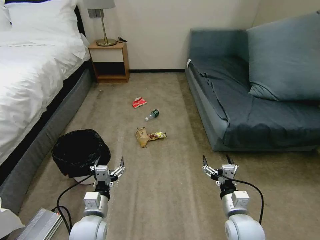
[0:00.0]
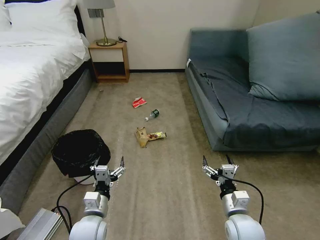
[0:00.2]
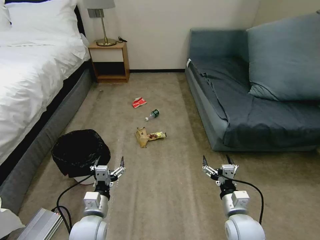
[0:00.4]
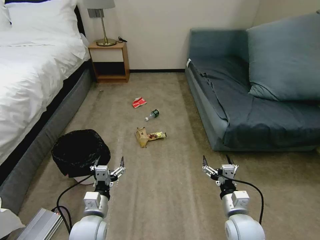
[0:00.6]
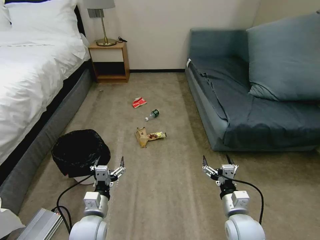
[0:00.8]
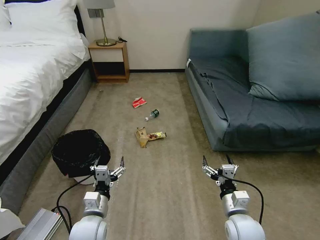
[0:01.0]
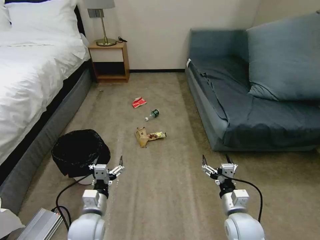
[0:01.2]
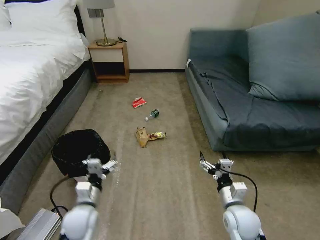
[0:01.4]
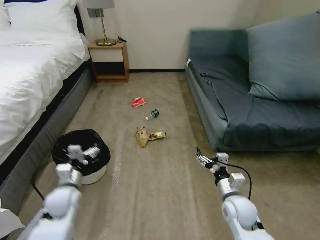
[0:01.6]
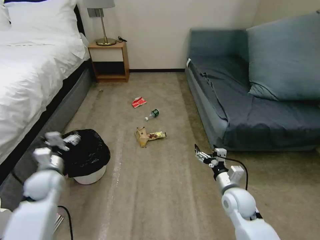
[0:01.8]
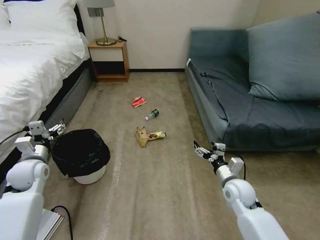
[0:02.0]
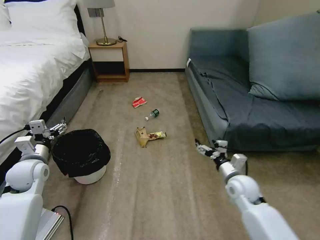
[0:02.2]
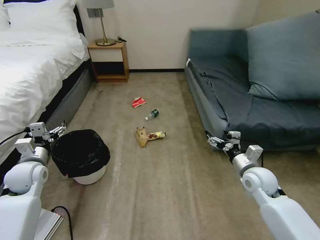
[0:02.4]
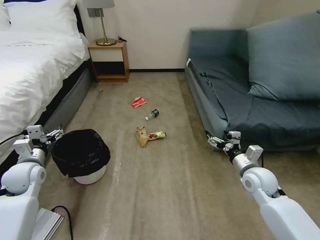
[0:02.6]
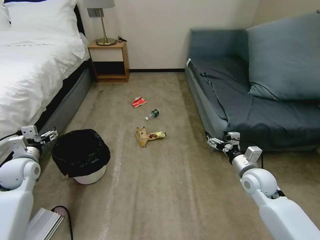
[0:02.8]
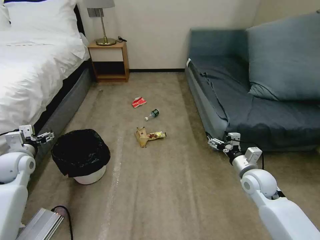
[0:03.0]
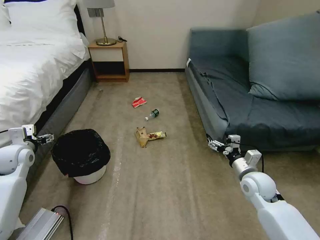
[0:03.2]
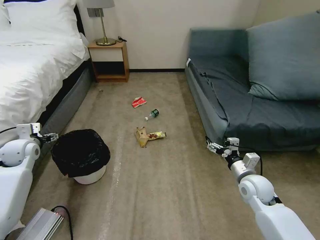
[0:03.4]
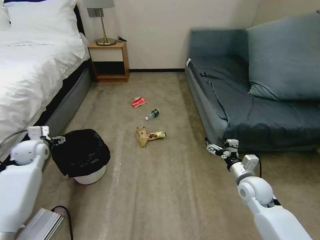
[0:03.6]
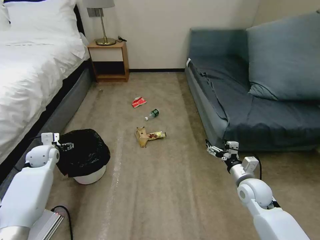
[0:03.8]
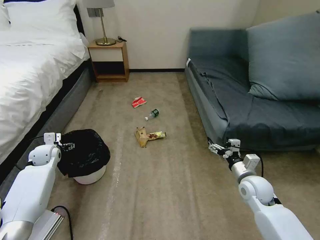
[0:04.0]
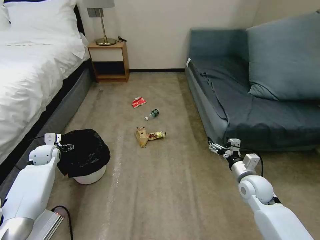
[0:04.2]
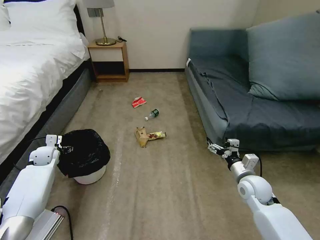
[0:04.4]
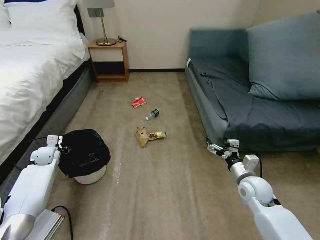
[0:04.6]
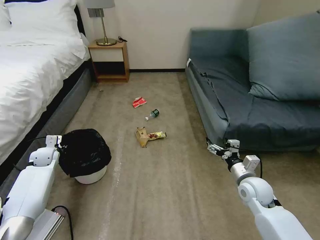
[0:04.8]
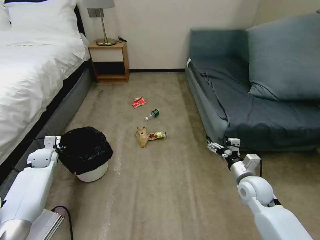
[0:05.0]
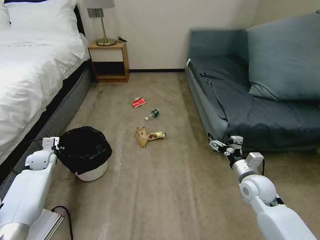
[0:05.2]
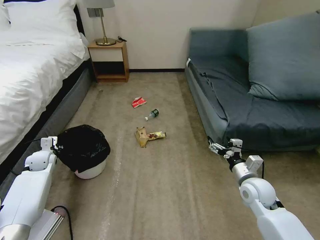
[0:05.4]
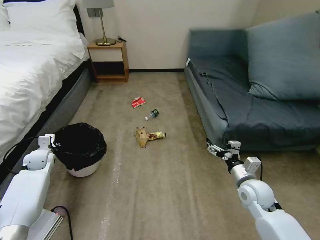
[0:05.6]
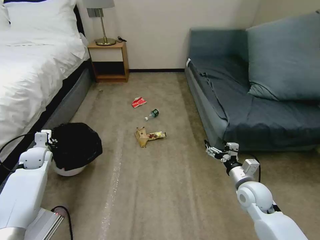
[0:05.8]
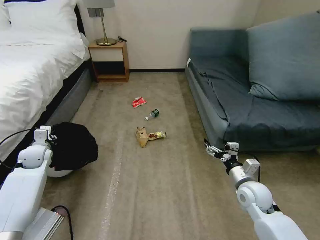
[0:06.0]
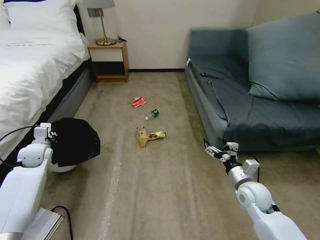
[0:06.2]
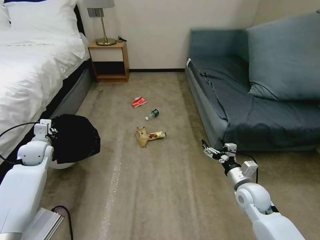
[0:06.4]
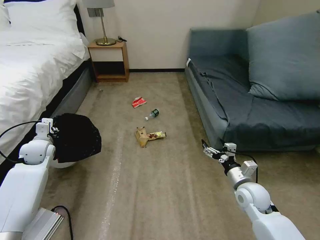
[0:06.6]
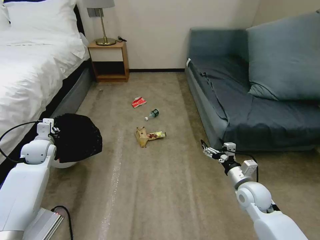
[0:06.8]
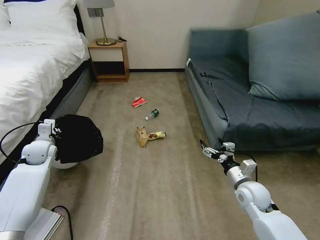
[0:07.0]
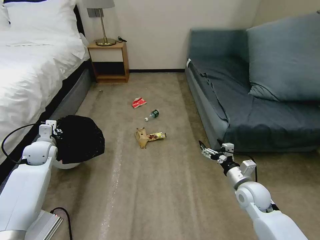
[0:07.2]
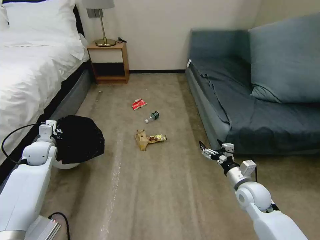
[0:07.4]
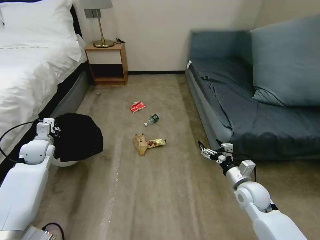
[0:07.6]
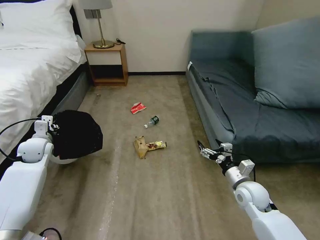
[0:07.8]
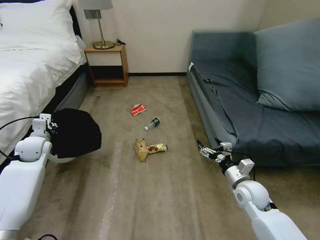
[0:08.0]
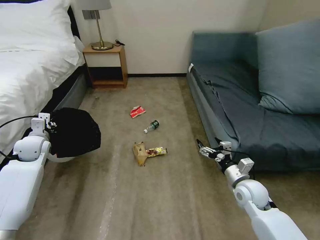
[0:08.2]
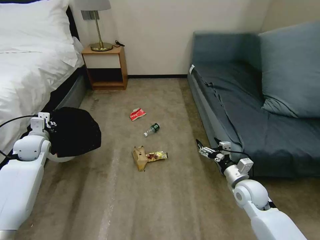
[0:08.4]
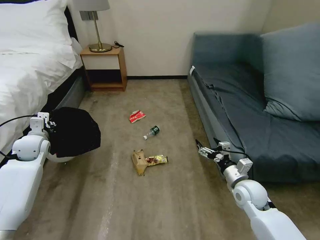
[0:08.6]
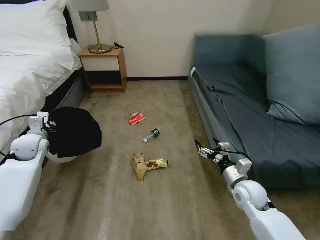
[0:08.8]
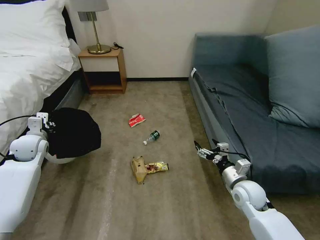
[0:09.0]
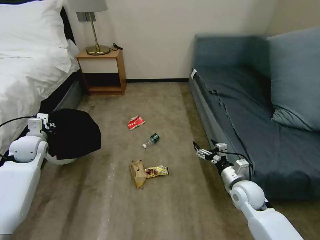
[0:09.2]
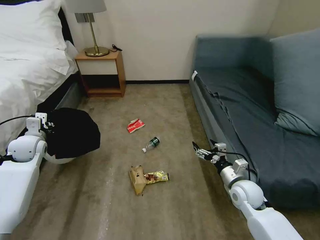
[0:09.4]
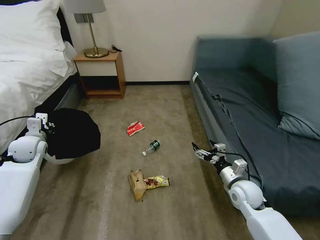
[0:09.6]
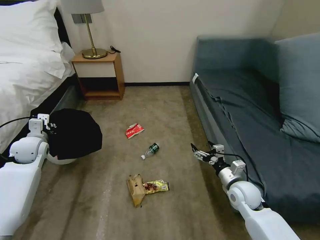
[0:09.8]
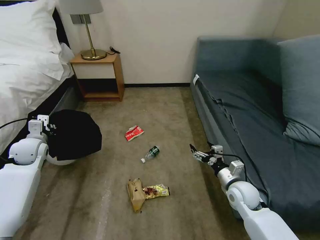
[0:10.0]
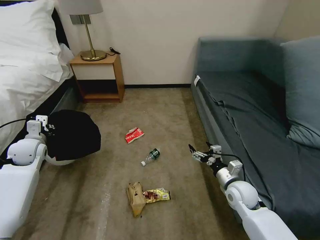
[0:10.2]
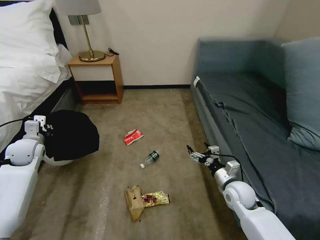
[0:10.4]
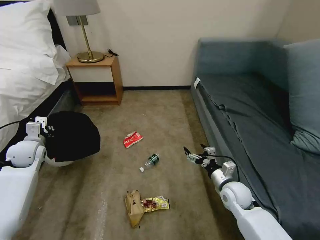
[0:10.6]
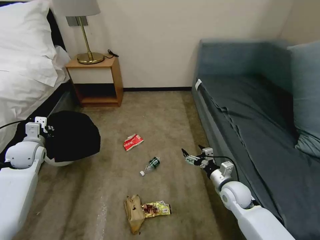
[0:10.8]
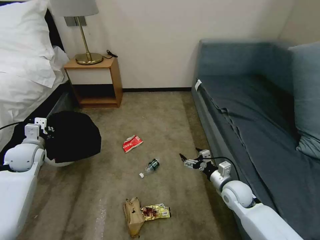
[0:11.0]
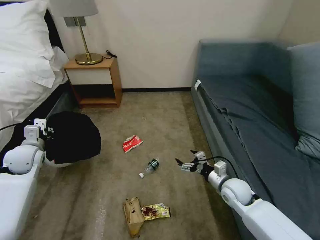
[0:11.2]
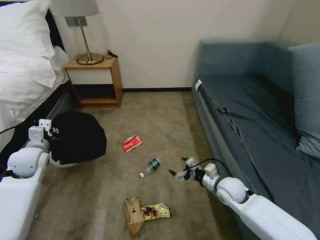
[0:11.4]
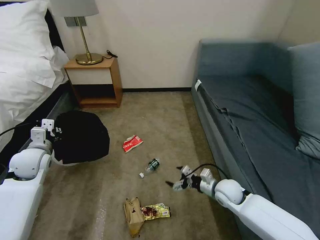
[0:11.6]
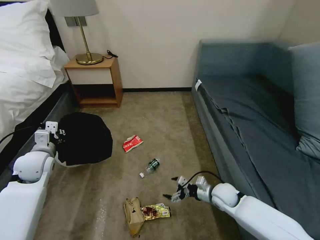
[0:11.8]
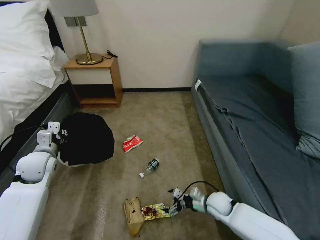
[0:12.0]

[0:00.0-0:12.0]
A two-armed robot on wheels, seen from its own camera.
Task of the whole recording: Pick up the trash bin, then pick up the garbage on the floor and place it into the trash bin.
0:01.6 to 0:03.0: The right gripper travels to the right and forward by about 10 cm. The left gripper goes about 20 cm to the left, upward and forward.
0:03.0 to 0:04.4: The left gripper heads downward and forward, covering approximately 15 cm.
0:04.4 to 0:06.0: The left gripper ends up some 5 cm from where it was, and closes its fingers.
0:06.0 to 0:07.6: There are only small adjustments of the grippers.
0:10.4 to 0:12.0: The right gripper goes some 10 cm downward. Meanwhile the left gripper goes roughly 10 cm to the right and backward.

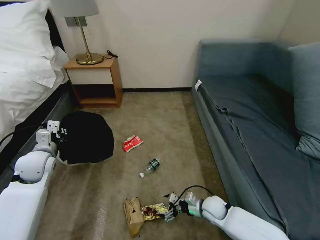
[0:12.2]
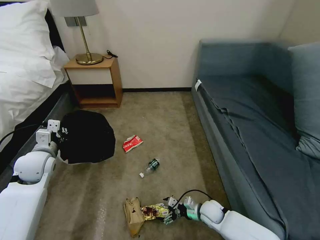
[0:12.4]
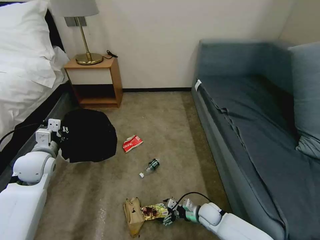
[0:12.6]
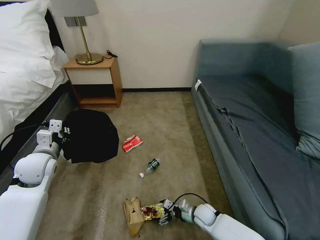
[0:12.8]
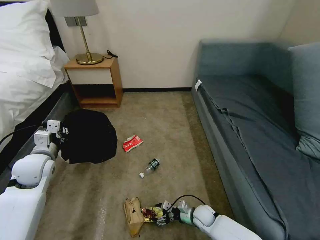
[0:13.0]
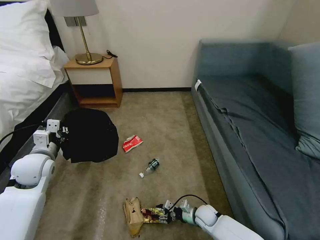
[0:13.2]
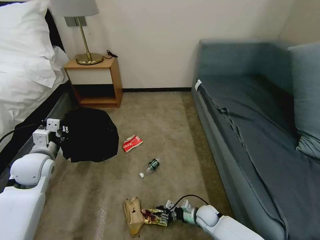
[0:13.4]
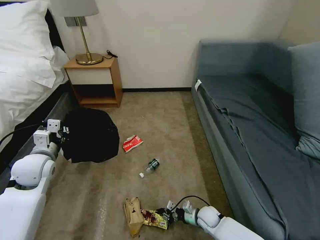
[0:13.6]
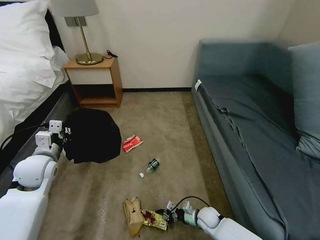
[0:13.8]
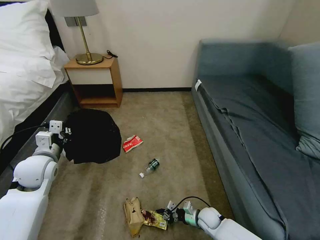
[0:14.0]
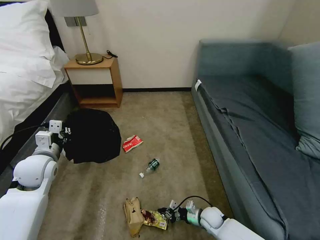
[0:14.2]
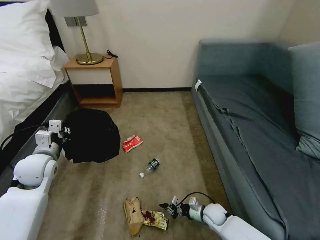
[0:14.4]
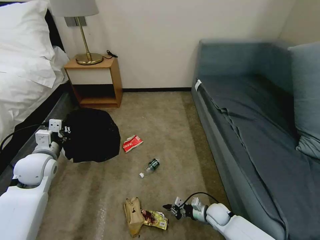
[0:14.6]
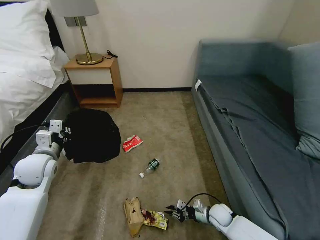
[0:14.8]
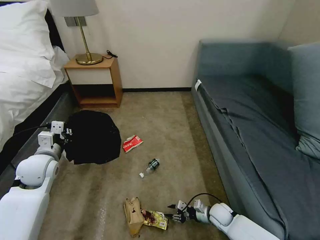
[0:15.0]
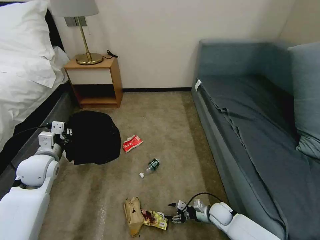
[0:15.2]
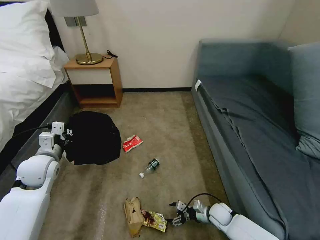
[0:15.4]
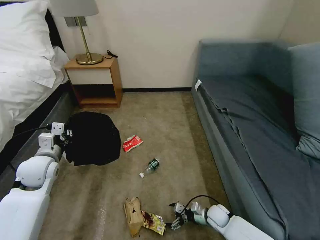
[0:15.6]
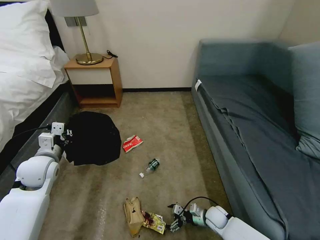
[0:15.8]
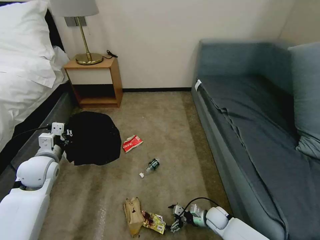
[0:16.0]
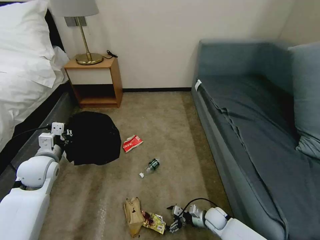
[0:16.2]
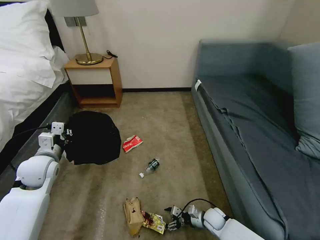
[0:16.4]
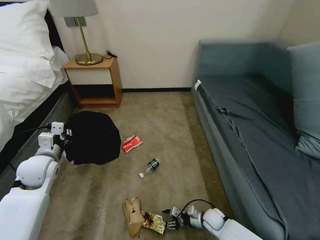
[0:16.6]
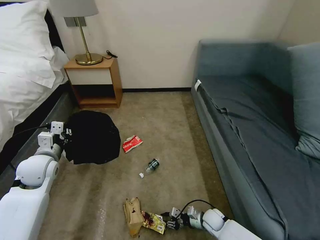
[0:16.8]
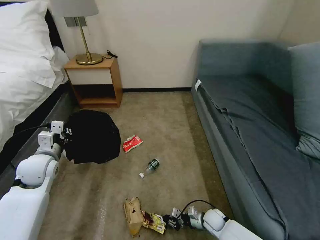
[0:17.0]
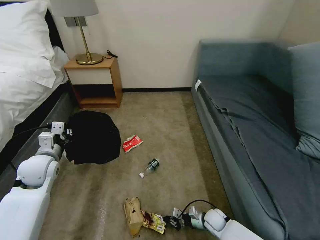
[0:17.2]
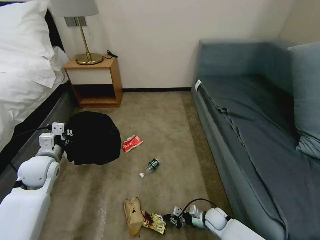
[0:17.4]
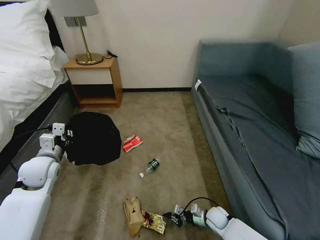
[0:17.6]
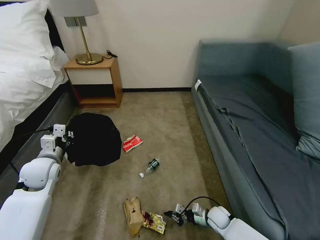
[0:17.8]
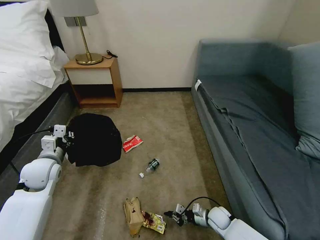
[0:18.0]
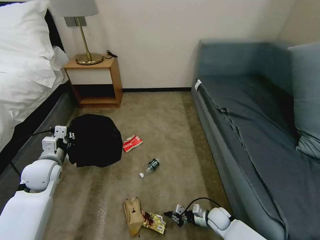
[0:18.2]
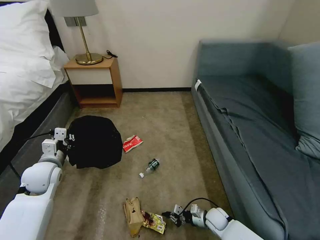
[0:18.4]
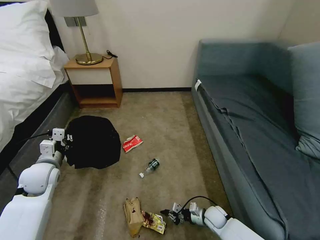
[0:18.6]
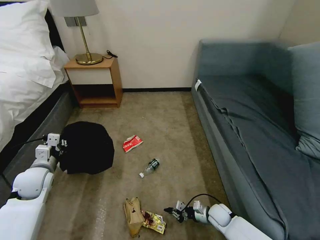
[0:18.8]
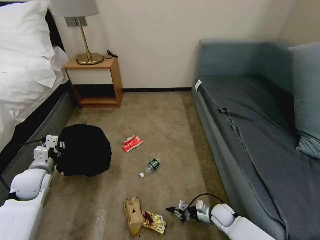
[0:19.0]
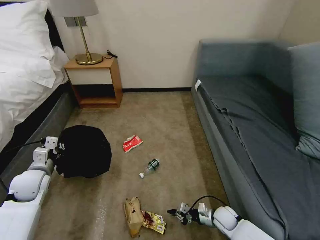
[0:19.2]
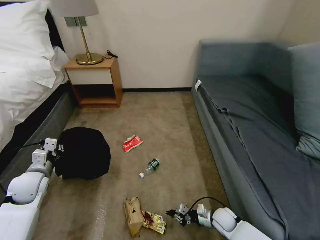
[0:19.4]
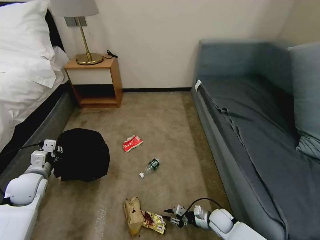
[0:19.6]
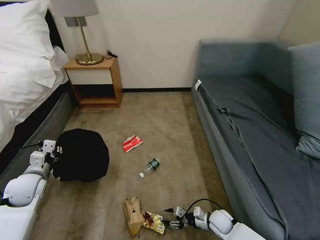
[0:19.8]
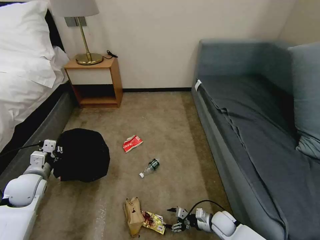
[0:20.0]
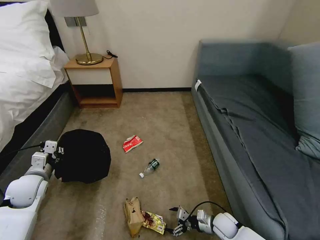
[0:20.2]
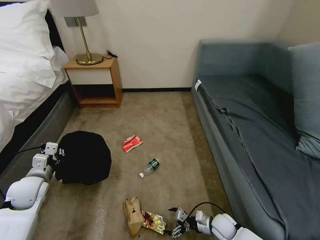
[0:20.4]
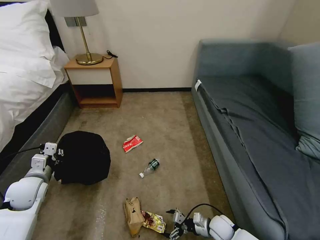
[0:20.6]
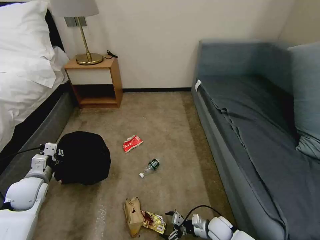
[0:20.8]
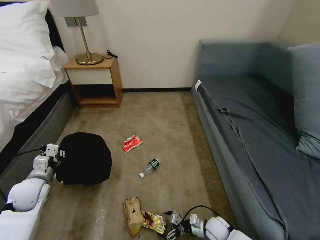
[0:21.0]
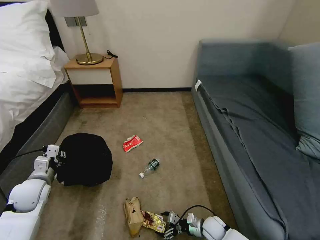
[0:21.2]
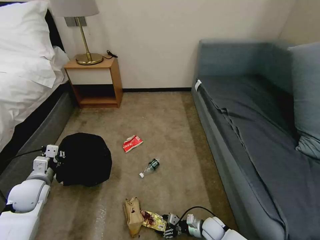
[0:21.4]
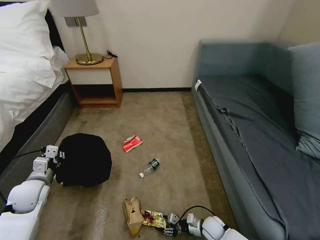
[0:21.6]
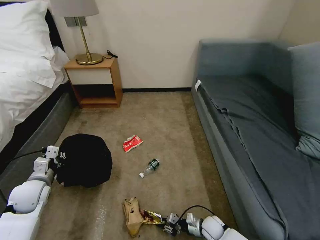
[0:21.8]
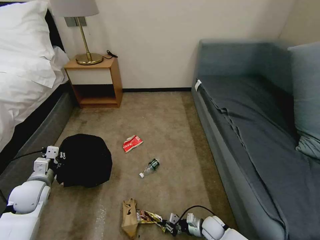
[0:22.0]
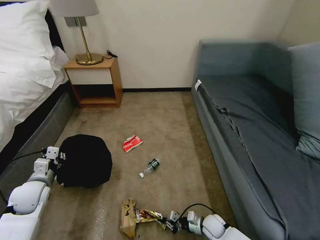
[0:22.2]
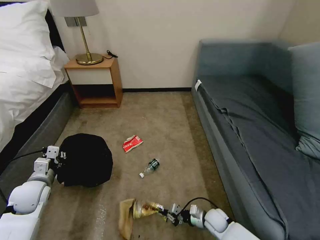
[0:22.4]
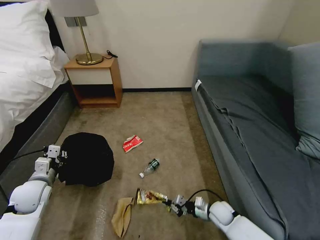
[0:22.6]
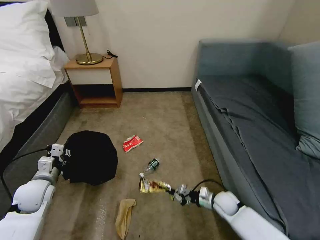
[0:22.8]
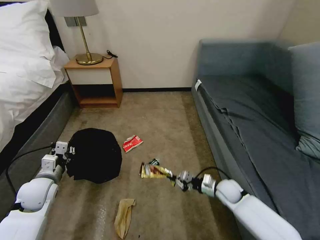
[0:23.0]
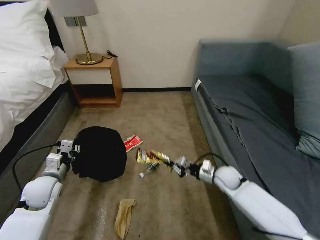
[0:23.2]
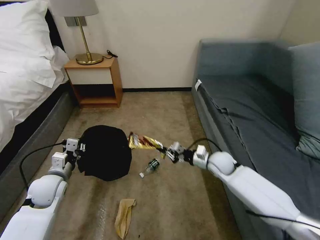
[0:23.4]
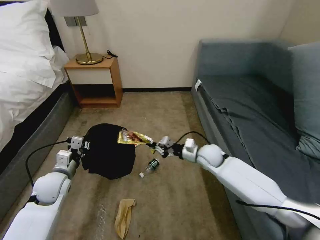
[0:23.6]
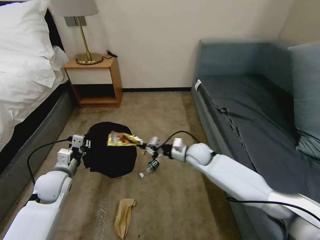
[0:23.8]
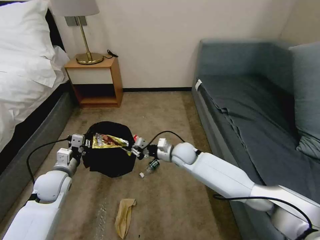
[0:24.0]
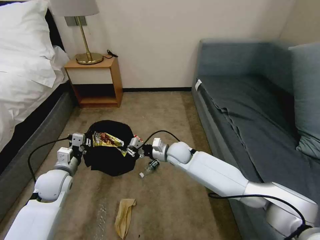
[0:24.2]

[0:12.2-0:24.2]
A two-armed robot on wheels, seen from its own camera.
Task of the whole recording: Pick up the trash bin, then pick up the garbage on the floor and place it into the trash bin.
0:12.2 to 0:13.8: The right gripper goes approximately 5 cm downward, and closes its fingers.
0:13.8 to 0:15.2: The right gripper heads to the right, covering approximately 5 cm, and opens.
0:15.2 to 0:16.6: The right gripper opens, then closes again.
0:16.6 to 0:18.2: The right gripper closes.
0:18.2 to 0:19.8: The right gripper opens. Meanwhile the left gripper heads to the left, covering roughly 5 cm.
0:19.8 to 0:21.2: The right gripper opens up.
0:21.2 to 0:22.6: The right gripper shifts roughly 5 cm upward, and closes.
0:22.6 to 0:24.2: The right gripper heads upward, to the left and forward, covering some 30 cm. Meanwhile the left gripper moves to the right, roughly 5 cm.
